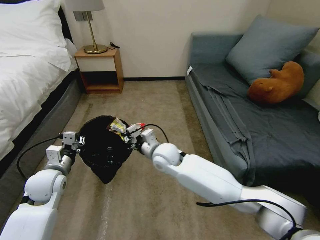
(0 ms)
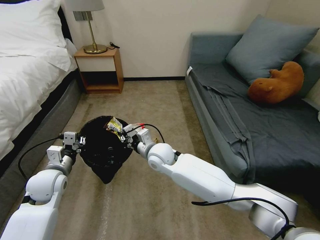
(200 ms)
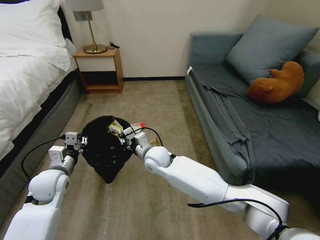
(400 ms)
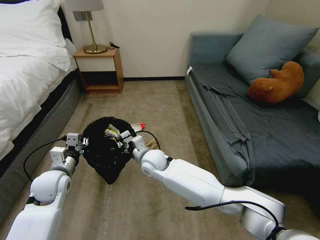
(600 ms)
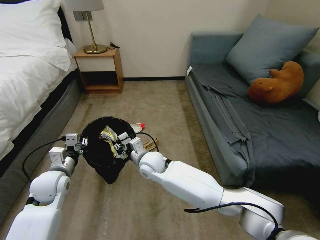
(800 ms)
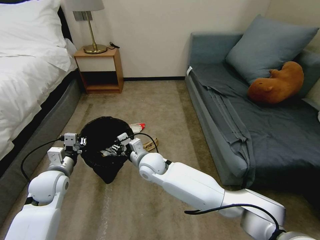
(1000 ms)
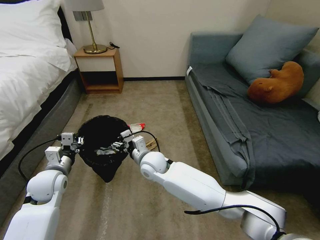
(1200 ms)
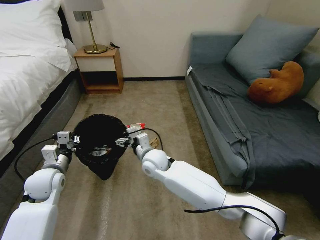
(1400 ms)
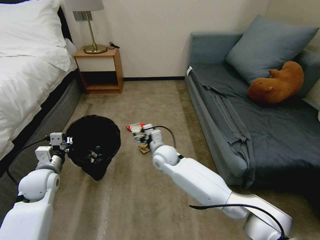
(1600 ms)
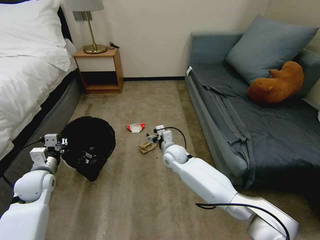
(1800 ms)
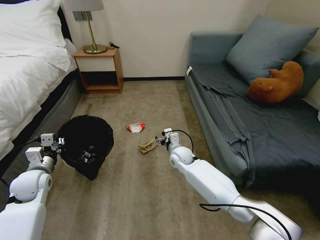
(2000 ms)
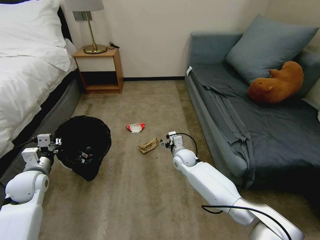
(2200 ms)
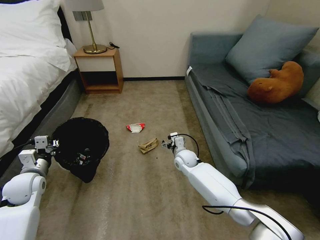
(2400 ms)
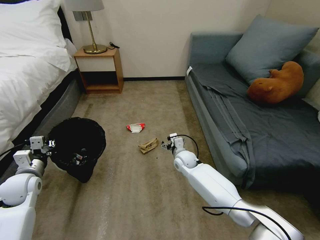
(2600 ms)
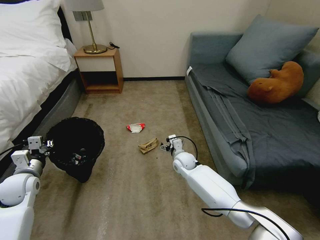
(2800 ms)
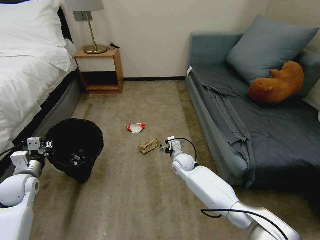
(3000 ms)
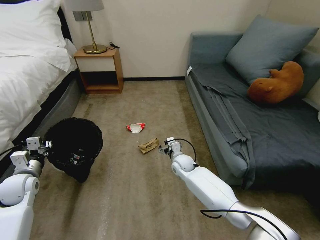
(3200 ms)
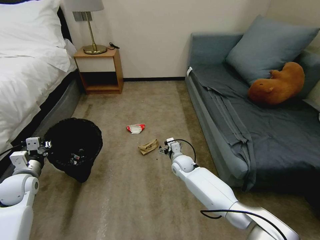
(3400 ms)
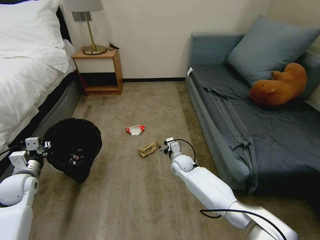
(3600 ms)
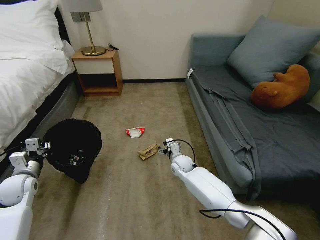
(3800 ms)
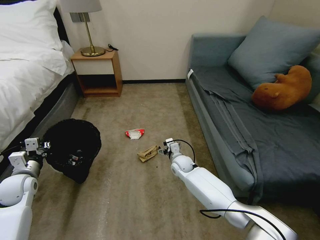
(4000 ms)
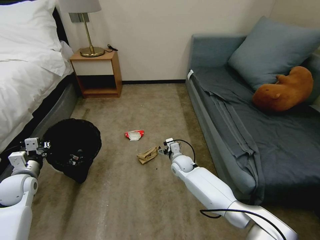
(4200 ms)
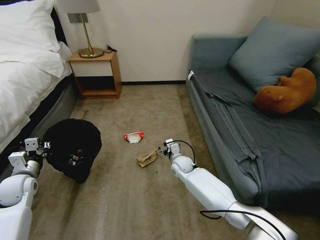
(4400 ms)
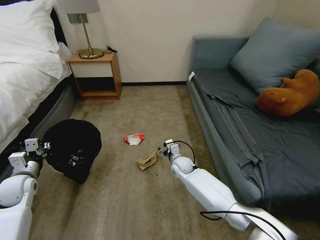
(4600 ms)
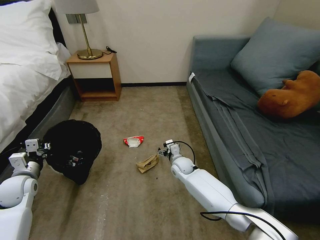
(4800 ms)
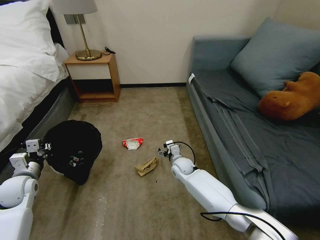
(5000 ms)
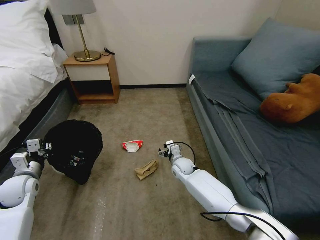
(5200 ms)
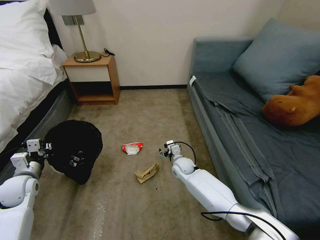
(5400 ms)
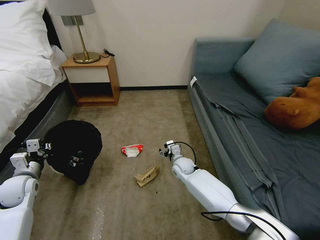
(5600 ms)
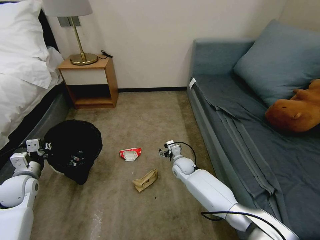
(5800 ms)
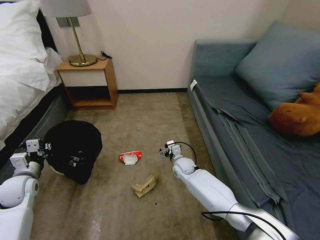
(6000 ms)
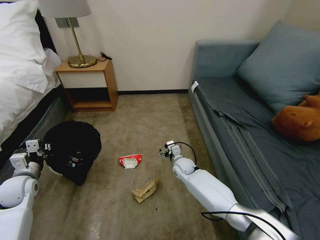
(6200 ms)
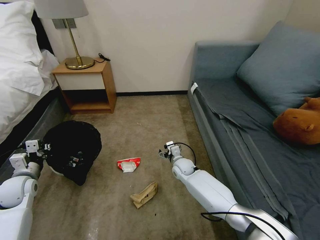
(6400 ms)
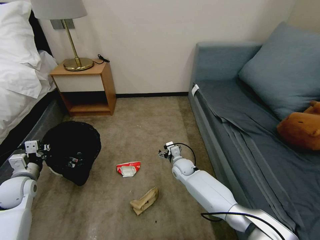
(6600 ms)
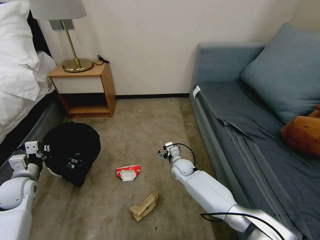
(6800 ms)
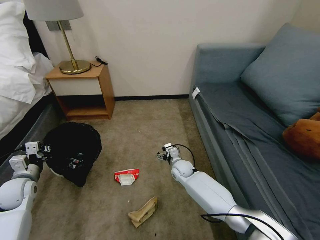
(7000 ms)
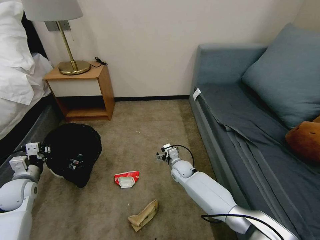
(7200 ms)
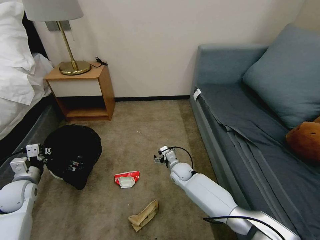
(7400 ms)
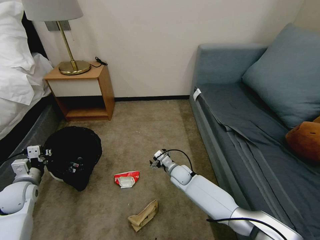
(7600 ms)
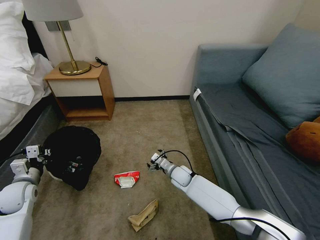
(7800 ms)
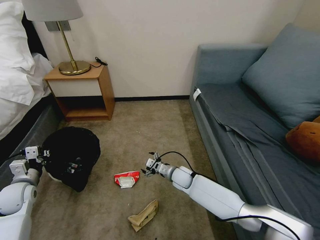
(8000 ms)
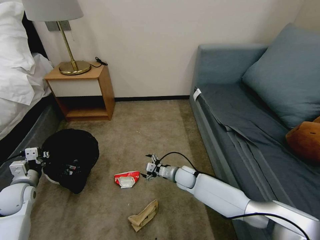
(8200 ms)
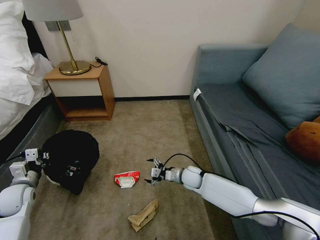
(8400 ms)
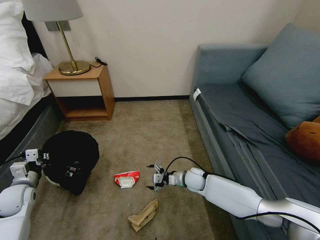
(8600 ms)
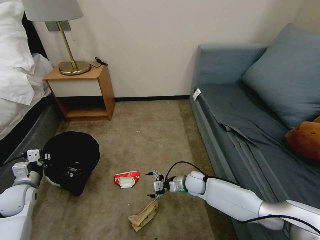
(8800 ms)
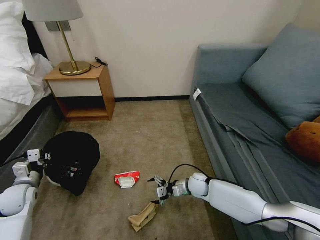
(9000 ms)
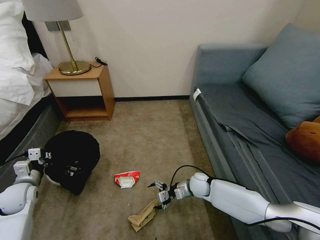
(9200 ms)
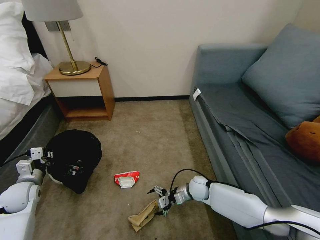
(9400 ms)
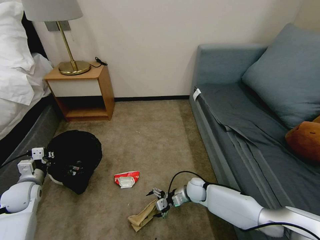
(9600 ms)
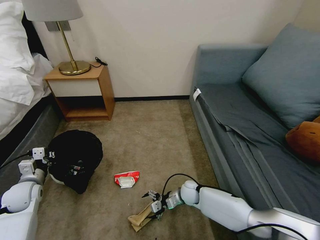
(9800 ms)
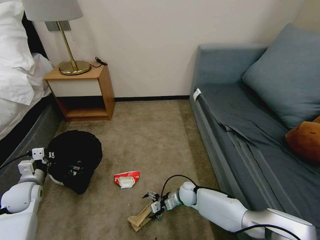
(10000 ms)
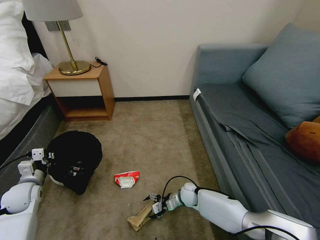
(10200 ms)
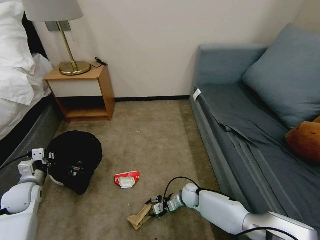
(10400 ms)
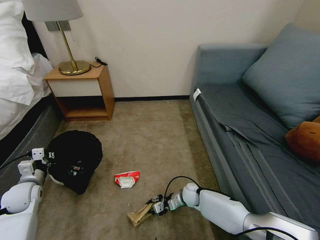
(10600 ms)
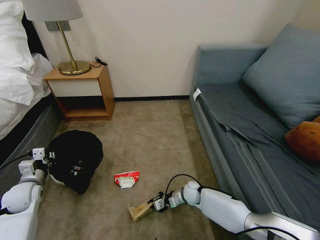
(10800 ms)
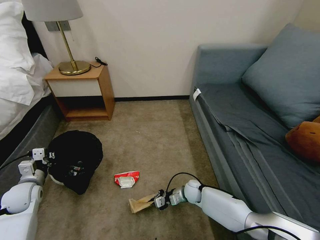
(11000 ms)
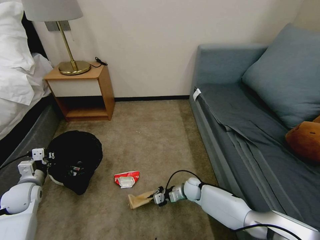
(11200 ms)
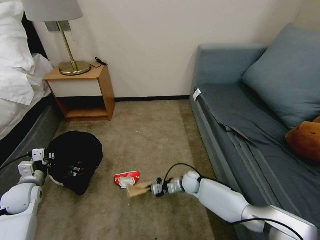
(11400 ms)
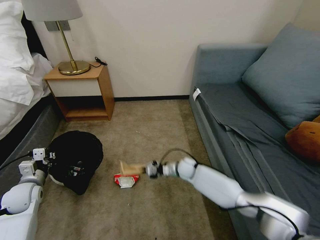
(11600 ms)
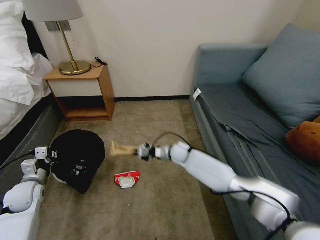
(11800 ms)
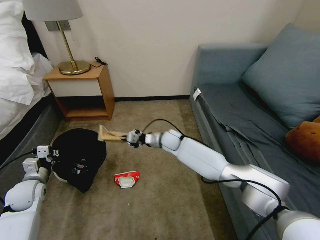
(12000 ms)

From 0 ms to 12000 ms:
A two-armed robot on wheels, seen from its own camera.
Task of the whole recording: Pick up the trash bin, then pick up the garbage on the floor and place it into the trash bin.
From 0 ms to 1600 ms: The right gripper shifts by about 5 cm, and opens.
From 1600 ms to 3000 ms: The left gripper shifts some 5 cm to the left. The right gripper goes roughly 15 cm downward and to the right.
From 7600 ms to 9000 ms: The right gripper travels to the right by roughly 10 cm.
From 9000 ms to 10400 ms: The right gripper moves downward, roughly 5 cm, and closes.
From 10400 ms to 12000 ms: The right gripper goes about 30 cm upward, forward and to the left, and closes its fingers.

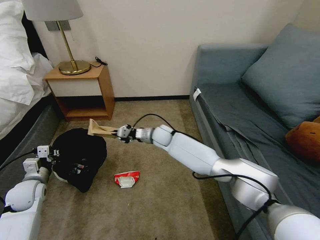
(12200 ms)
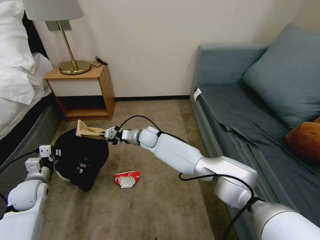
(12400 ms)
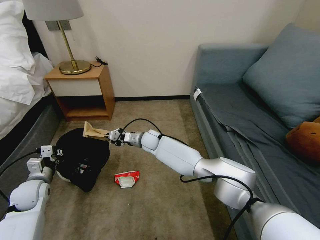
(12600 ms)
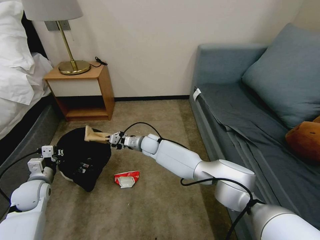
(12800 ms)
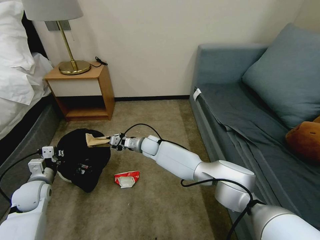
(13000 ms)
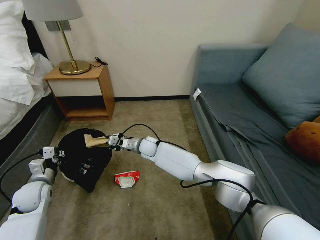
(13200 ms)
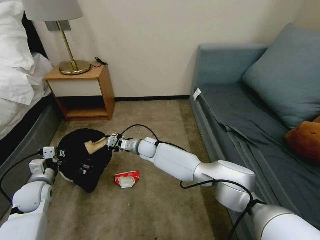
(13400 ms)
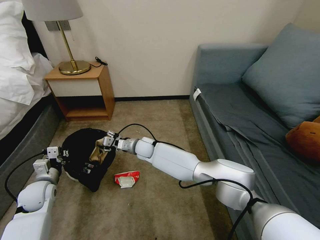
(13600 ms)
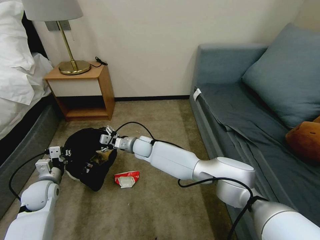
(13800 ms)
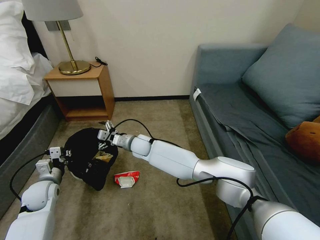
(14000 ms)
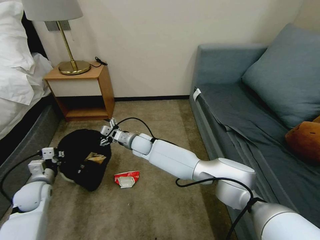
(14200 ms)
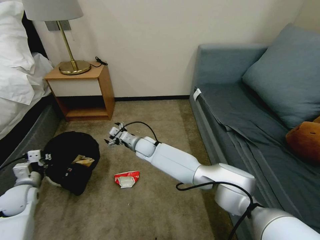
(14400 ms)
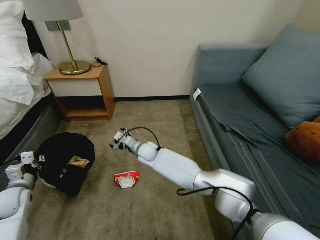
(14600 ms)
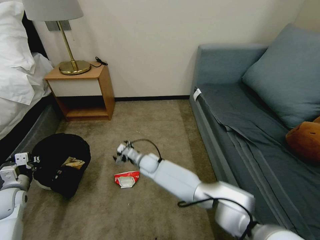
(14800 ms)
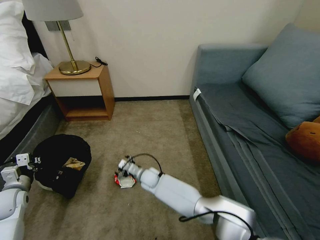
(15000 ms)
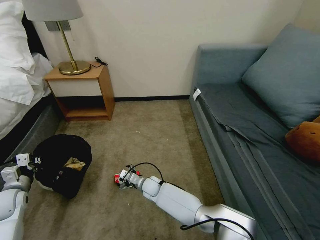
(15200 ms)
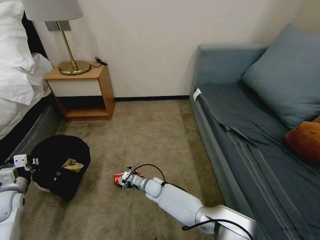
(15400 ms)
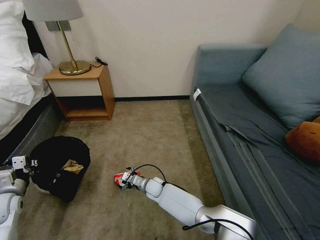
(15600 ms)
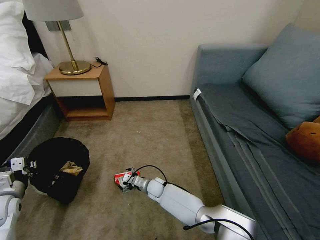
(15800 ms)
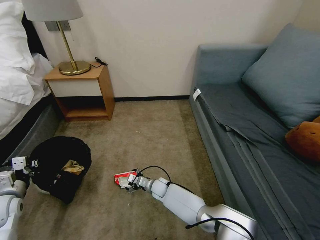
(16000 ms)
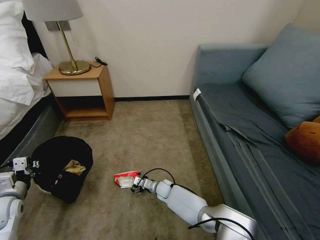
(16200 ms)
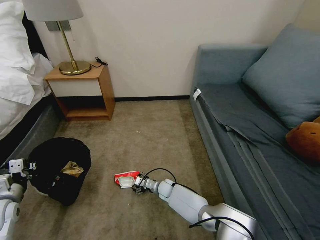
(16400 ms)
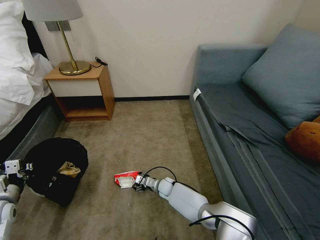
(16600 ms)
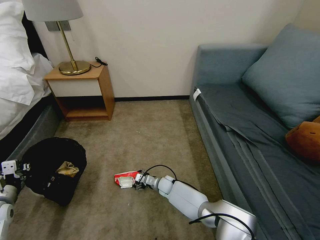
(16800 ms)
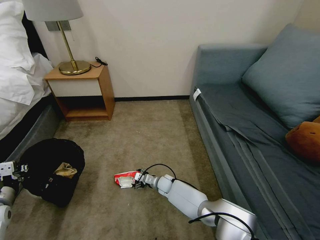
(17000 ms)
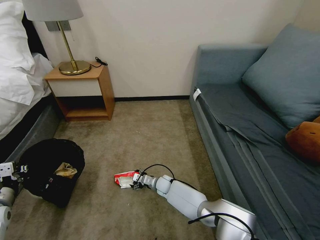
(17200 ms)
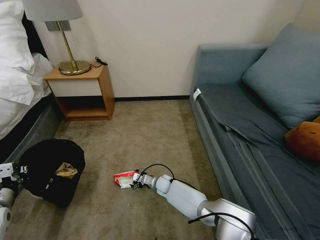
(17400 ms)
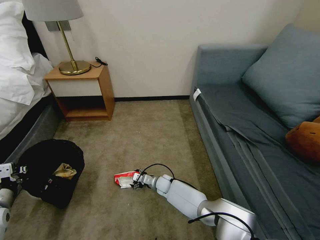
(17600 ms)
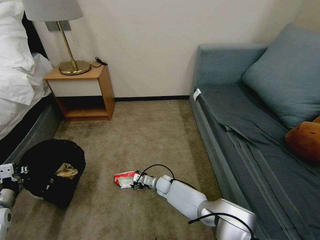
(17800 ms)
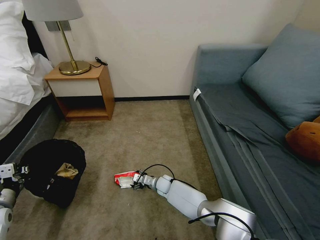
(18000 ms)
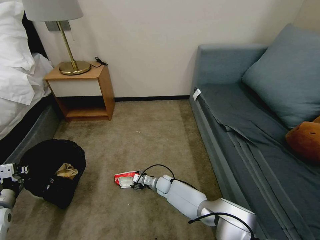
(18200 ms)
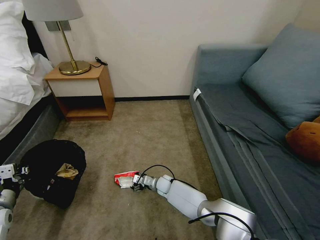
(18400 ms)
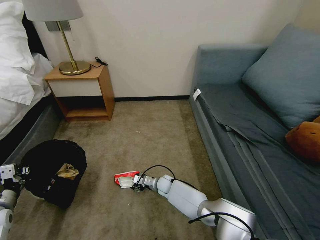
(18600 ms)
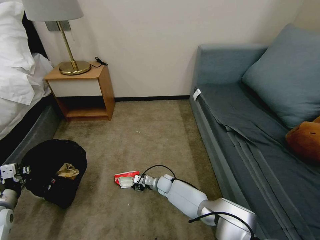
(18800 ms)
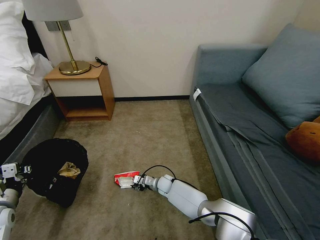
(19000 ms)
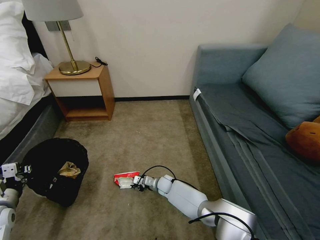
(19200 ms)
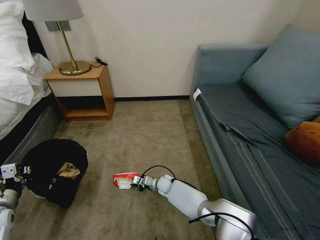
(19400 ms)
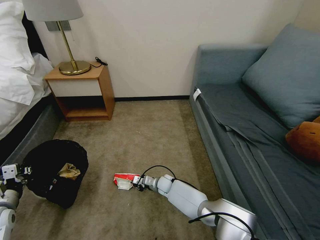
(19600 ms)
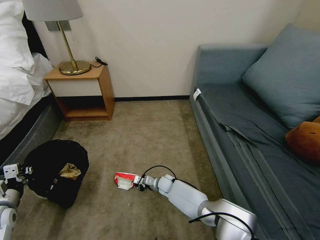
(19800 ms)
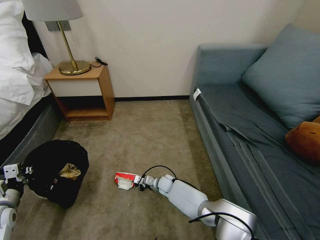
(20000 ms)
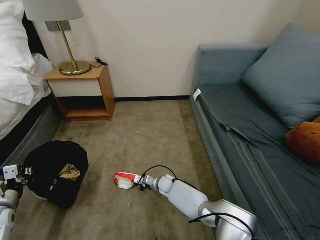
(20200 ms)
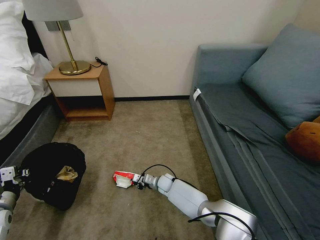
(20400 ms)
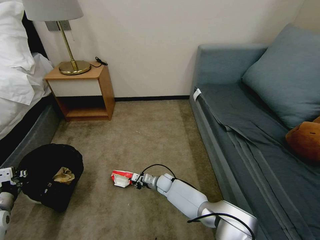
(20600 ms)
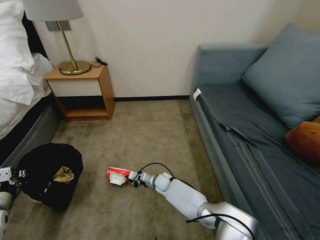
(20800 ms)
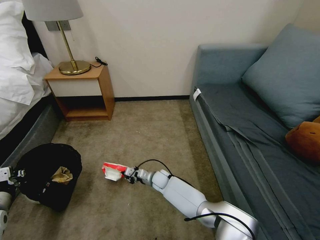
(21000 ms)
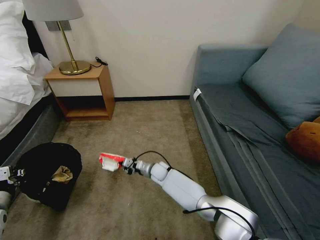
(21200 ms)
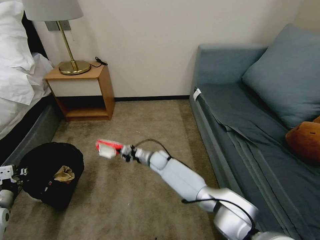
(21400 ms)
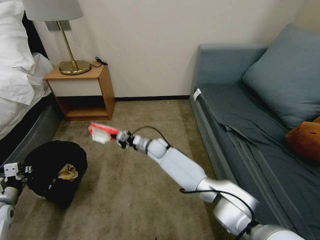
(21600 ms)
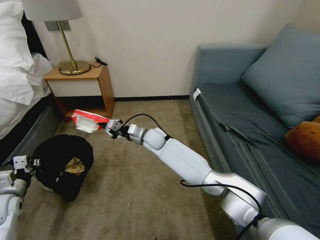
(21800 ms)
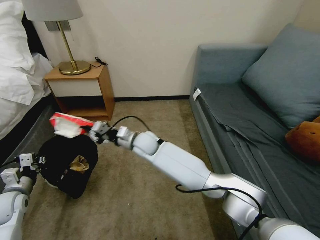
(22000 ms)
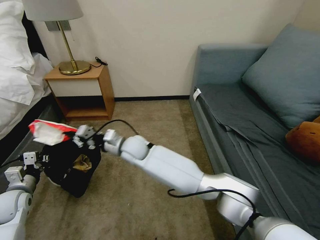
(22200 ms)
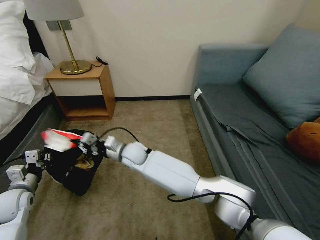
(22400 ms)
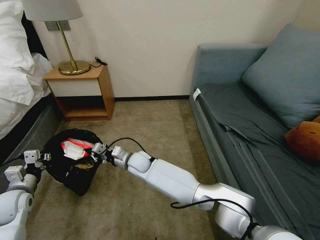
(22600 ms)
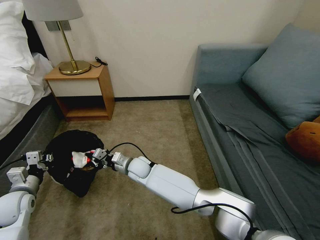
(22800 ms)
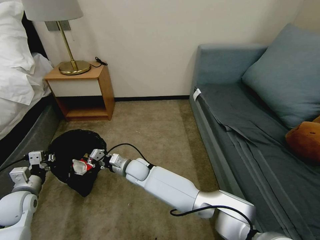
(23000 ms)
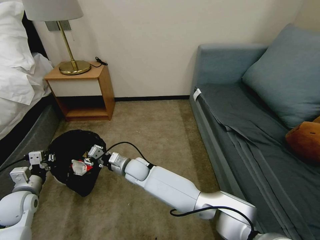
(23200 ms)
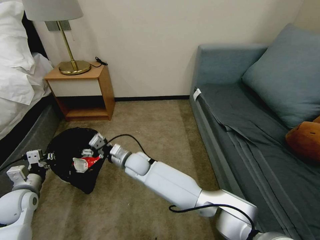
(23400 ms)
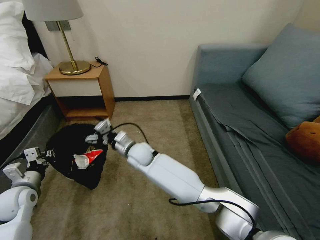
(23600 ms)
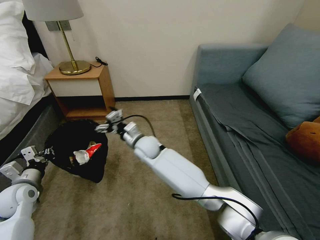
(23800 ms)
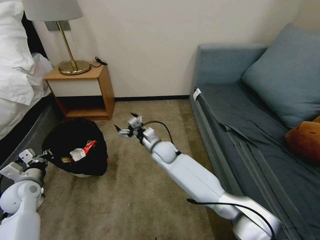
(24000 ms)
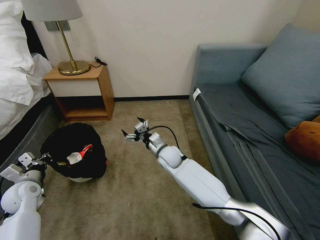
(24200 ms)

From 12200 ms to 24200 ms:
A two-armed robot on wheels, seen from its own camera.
Task of the whole recording: Pick up the trash bin, then pick up the garbage on the floor and place it into the trash bin.
From 12200 ms to 13800 ms: The right gripper shifts about 5 cm to the left, and opens.
From 13800 ms to 15200 ms: The right gripper goes approximately 20 cm downward and backward. The left gripper heads to the left, covering roughly 10 cm.
From 15200 ms to 16600 ms: The right gripper travels to the right and downward by approximately 10 cm. Meanwhile the left gripper changes place by about 5 cm.
From 16600 ms to 18200 ms: There are only small adjustments of the grippers.
From 18200 ms to 19800 ms: The right gripper closes.
From 19800 ms to 21200 ms: The right gripper heads upward, covering roughly 5 cm.
From 21200 ms to 22600 ms: The right gripper is displaced upward and to the left by roughly 15 cm; the left gripper travels to the right by roughly 5 cm.
From 22600 ms to 24200 ms: The right gripper moves to the right, about 15 cm, and opens its fingers.
